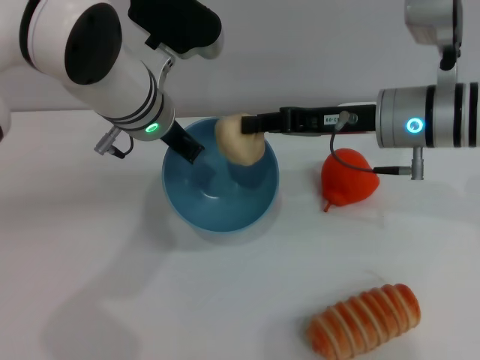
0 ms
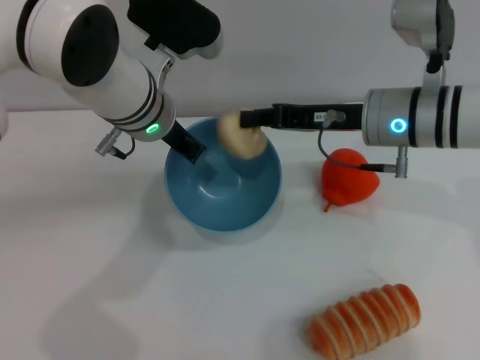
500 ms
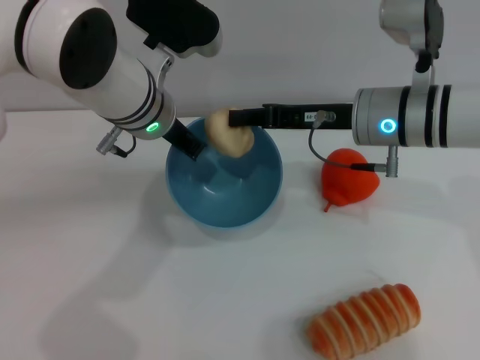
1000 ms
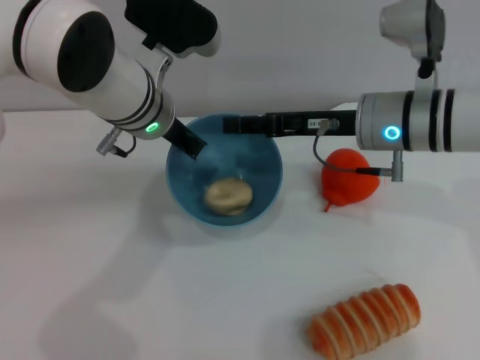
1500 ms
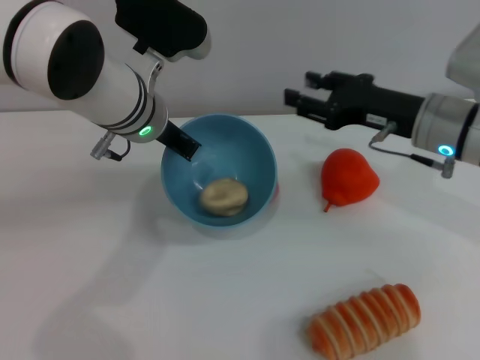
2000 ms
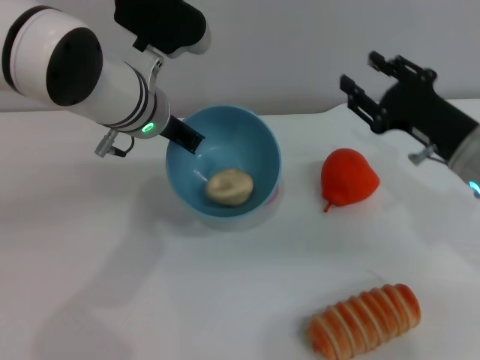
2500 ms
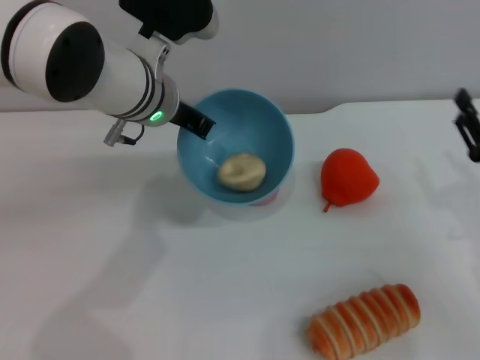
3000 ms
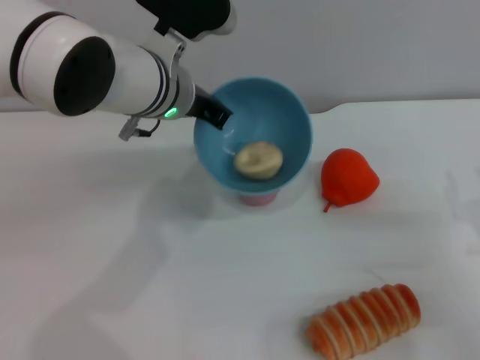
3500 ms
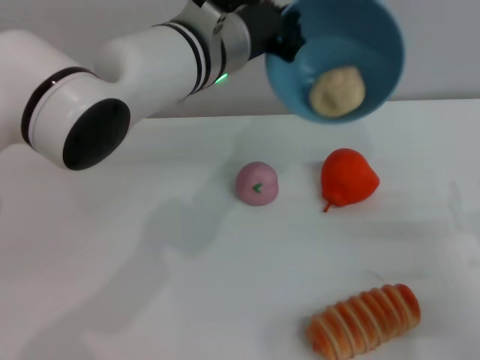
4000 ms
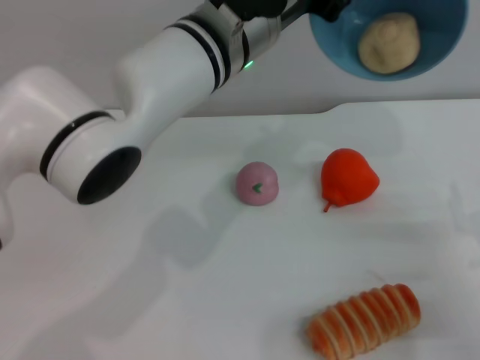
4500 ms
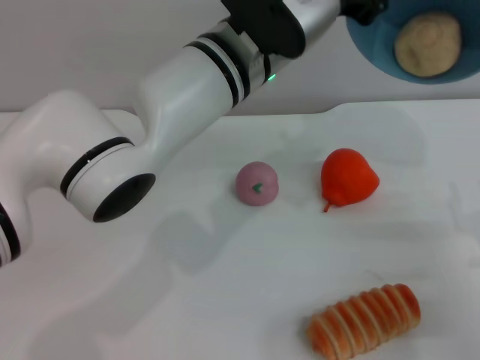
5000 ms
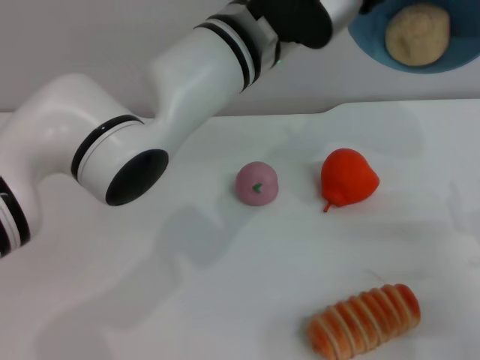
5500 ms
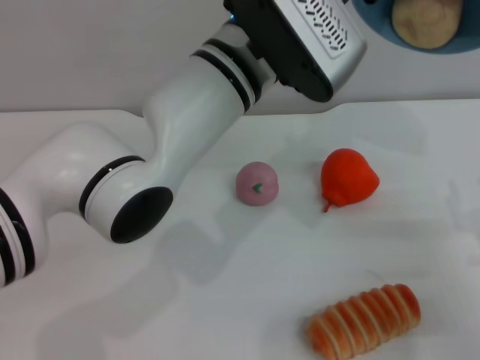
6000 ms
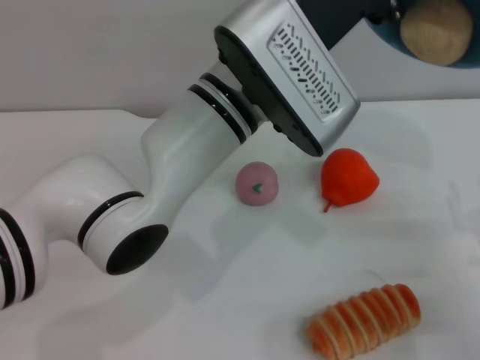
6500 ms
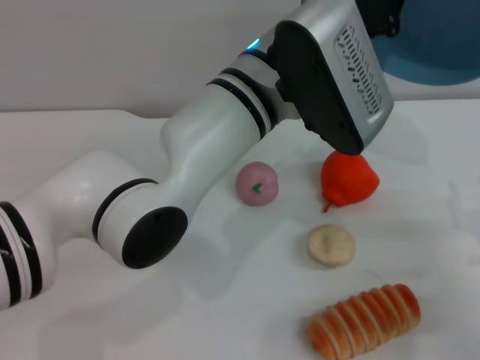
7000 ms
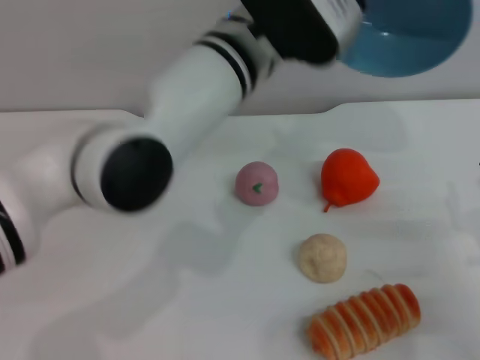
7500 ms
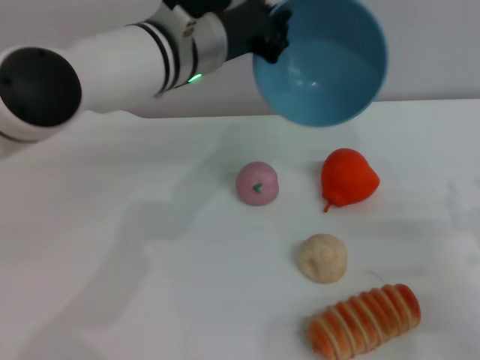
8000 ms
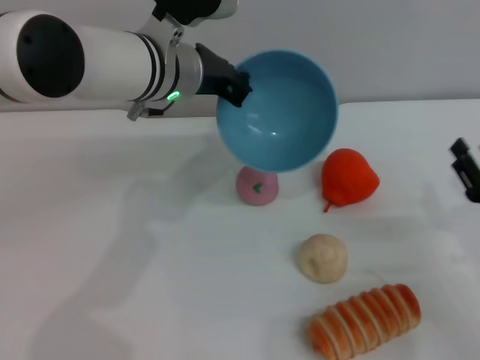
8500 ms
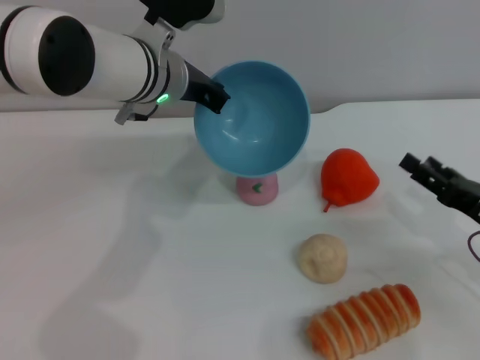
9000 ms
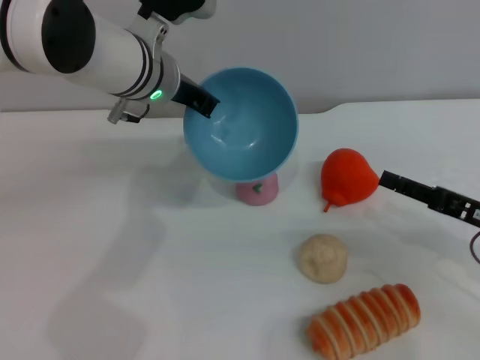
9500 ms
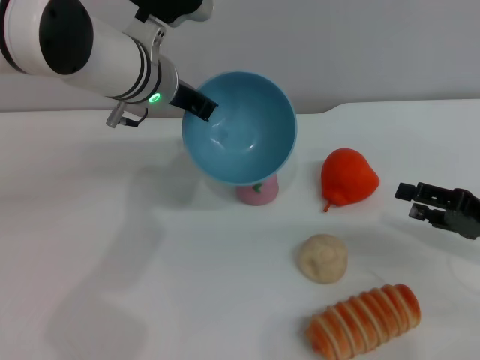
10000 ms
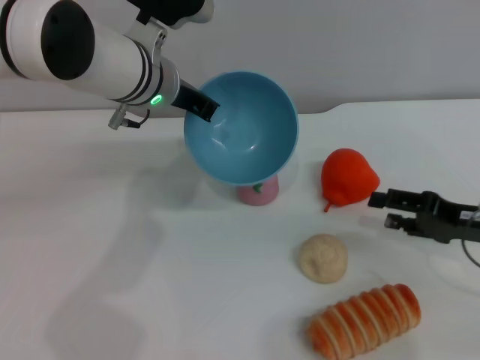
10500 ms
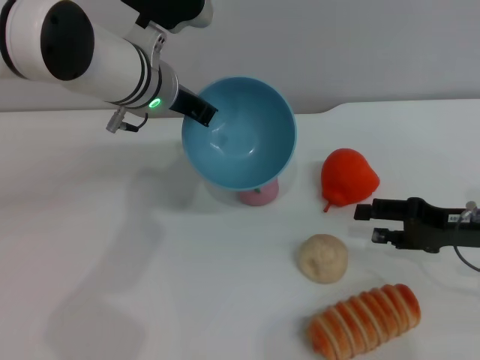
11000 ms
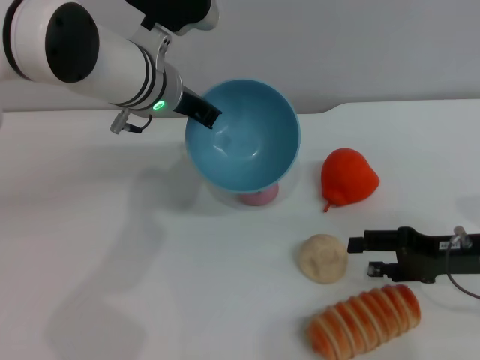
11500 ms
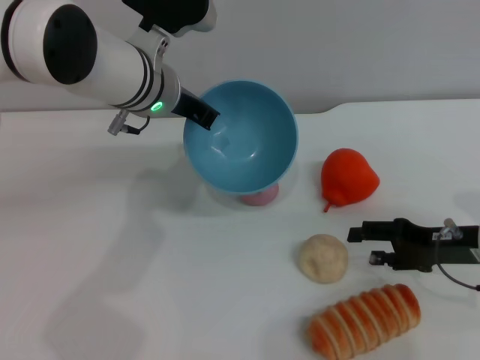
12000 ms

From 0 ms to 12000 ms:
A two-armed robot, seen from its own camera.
Task of the whole recording: put the egg yolk pastry into the blue bowl and pour it out repeatedly.
Step, from 0 ms to 2000 ms: Place the egg yolk pastry into the bowl.
Step, from 2500 ms to 7500 ms: Pour the egg yolk pastry out of bowl.
From 0 ms to 2000 ms: The right gripper opens its fingers.
From 2000 ms to 4000 ms: The right gripper goes approximately 20 cm backward, to the right and downward; the left gripper shifts approximately 5 cm to the right.
From 6000 ms to 8000 ms: The left gripper is displaced to the left by about 5 cm.
From 8000 ms to 10000 ms: The right gripper changes place by roughly 5 cm.
From 10000 ms to 12000 ms: The right gripper changes place by approximately 5 cm.

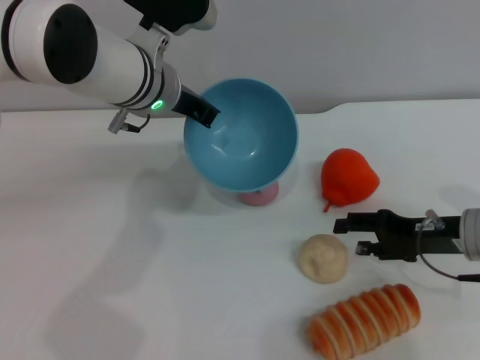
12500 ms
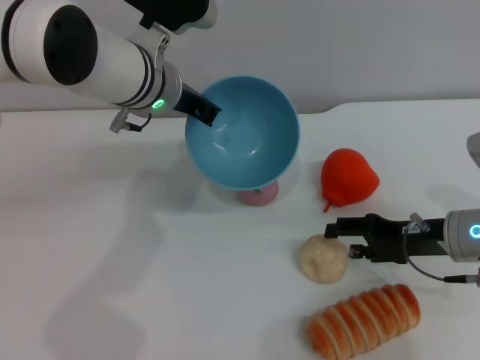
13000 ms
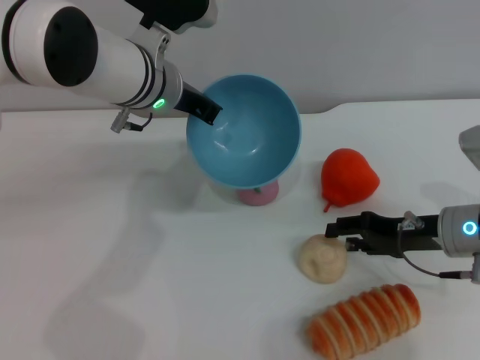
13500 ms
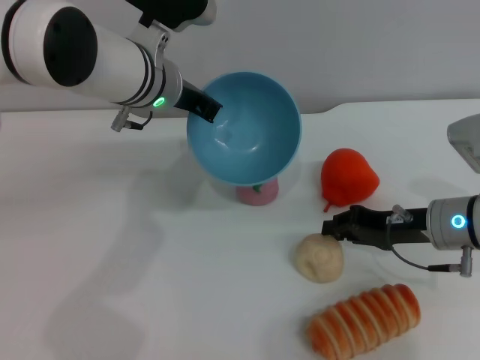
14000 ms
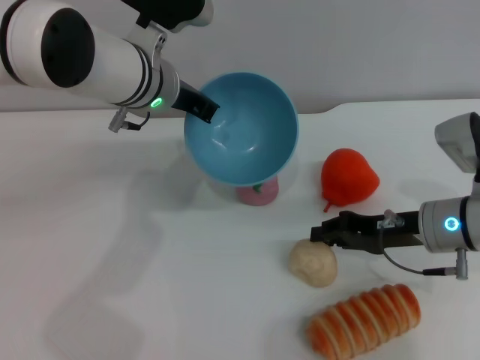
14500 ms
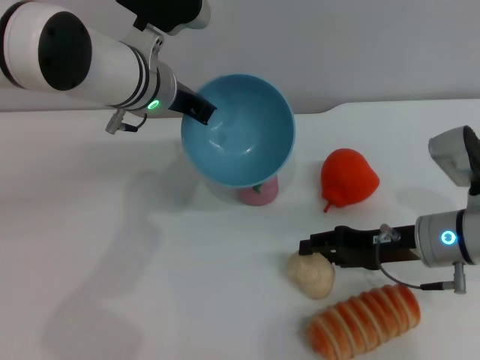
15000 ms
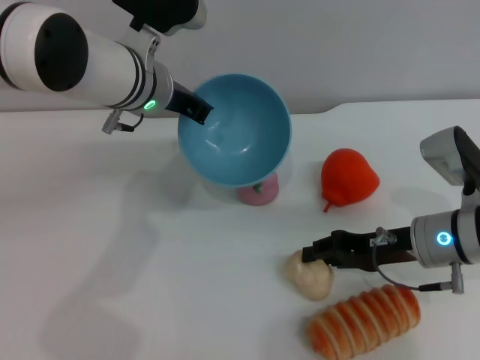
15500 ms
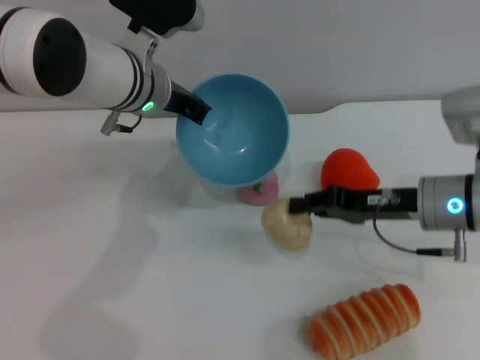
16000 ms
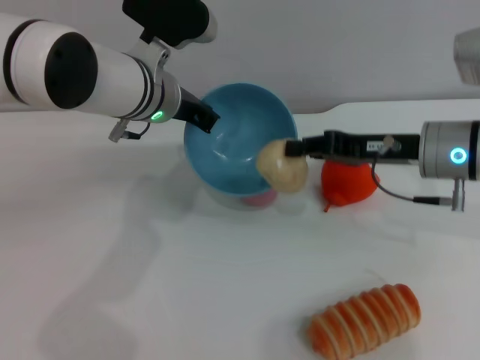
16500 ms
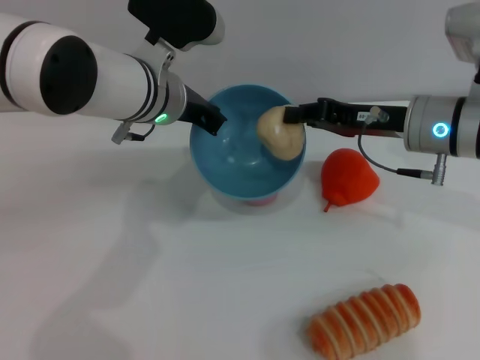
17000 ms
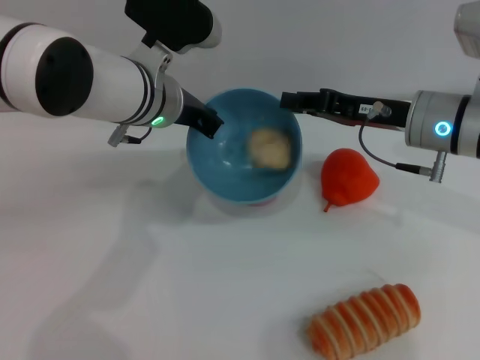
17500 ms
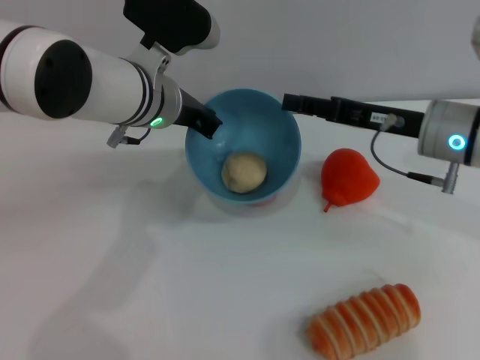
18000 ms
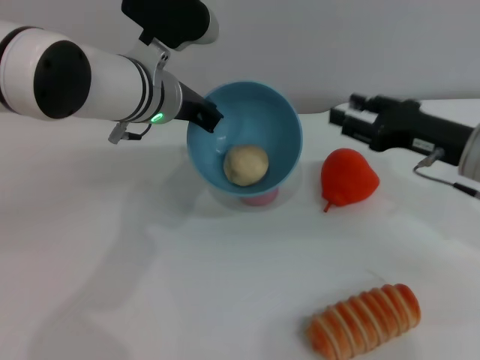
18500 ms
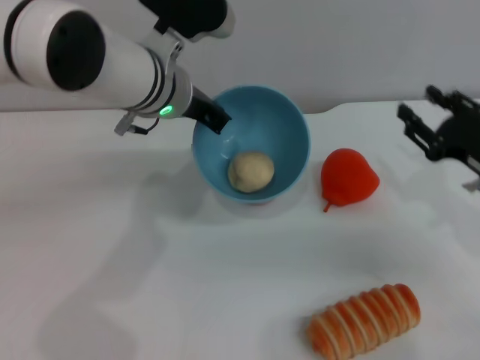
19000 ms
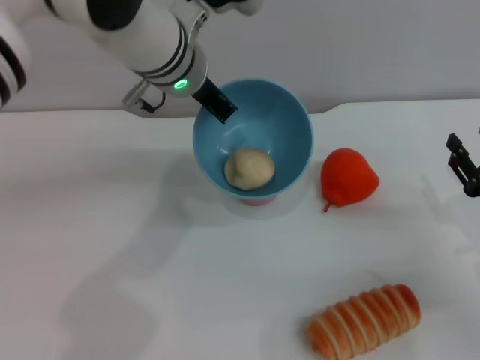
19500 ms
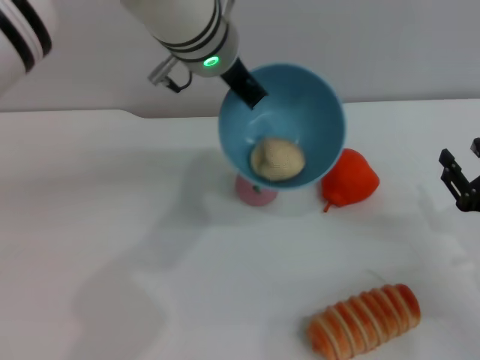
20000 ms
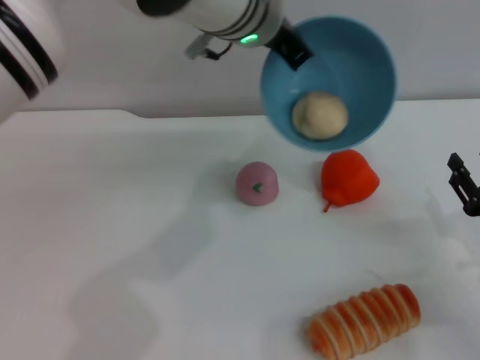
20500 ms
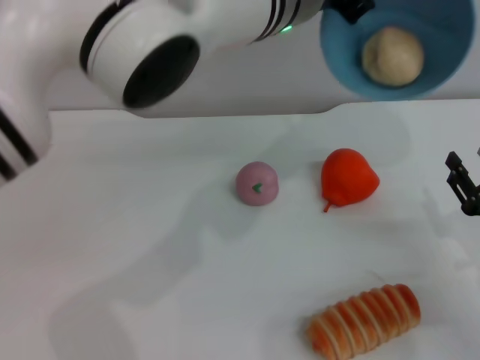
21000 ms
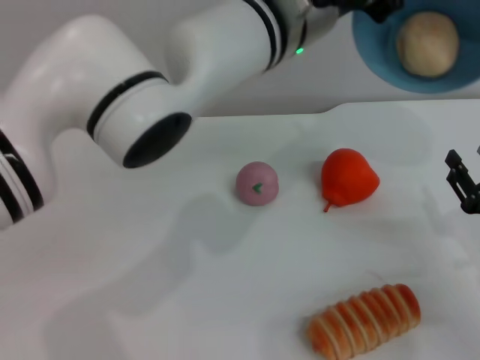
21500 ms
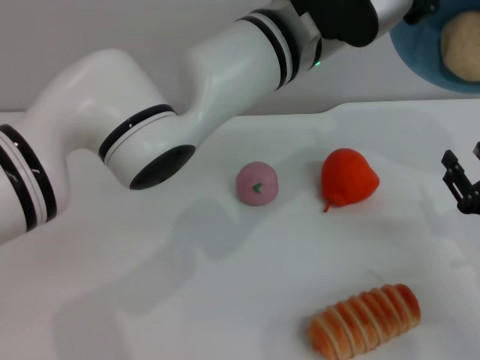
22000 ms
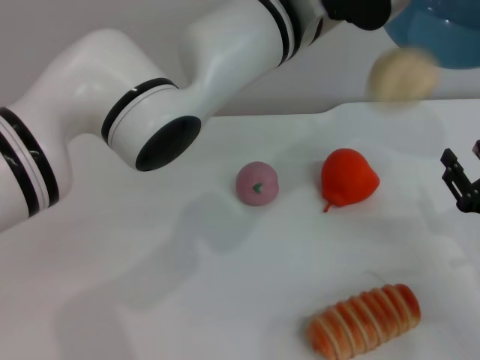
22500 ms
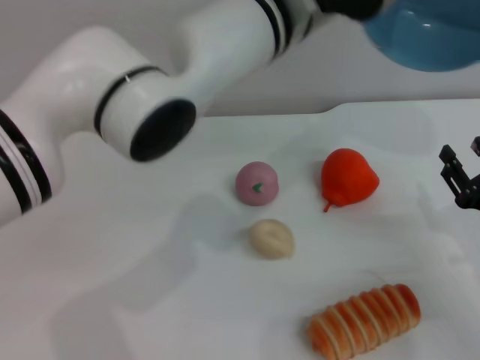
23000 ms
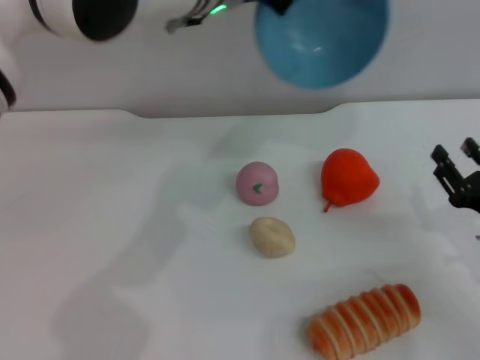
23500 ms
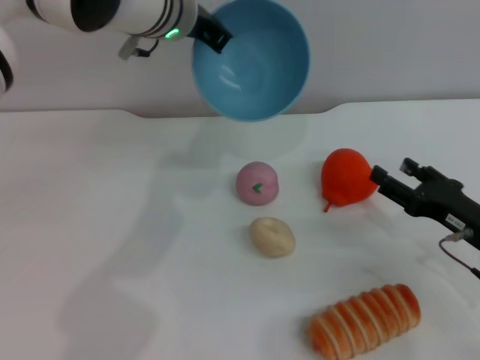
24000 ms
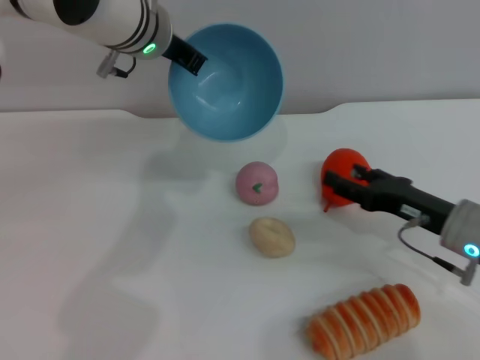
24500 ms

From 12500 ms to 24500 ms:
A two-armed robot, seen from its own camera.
Task of the whole recording: put the egg yolk pastry into the blue bowl and pour it out repeatedly.
Step, from 12500 ms to 16000 ms: Pick up the egg yolk pastry with the right gripper.
Step, from 16500 ms to 18500 ms: Place the egg yolk pastry into the bowl.
Step, from 19000 ms to 22500 ms: Pour the egg yolk pastry out of bowl.
From 12500 ms to 14500 ms: The right gripper closes.
From 14500 ms to 16500 ms: The right gripper travels upward by about 5 cm, and opens and closes again.
From 16500 ms to 18500 ms: The right gripper shifts by approximately 5 cm, and opens its fingers.
From 18500 ms to 20500 ms: The left gripper travels upward and to the right by some 15 cm; the right gripper is displaced backward, downward and to the right by about 15 cm.
From 22500 ms to 24500 ms: The left gripper is displaced to the left and forward by about 15 cm. The right gripper travels forward and to the left by some 10 cm.

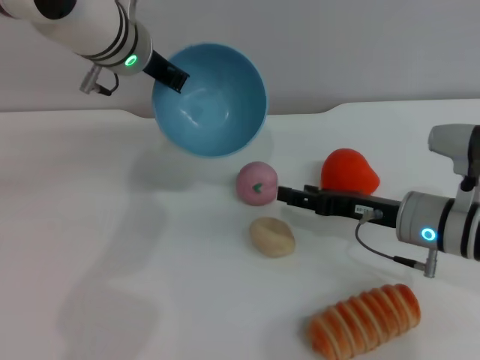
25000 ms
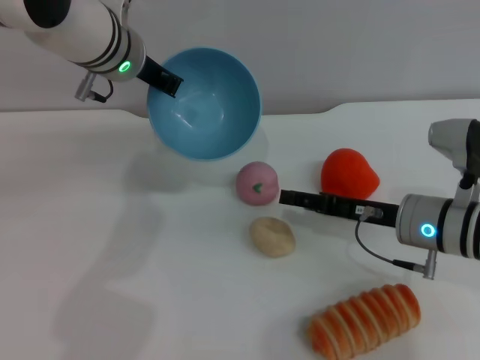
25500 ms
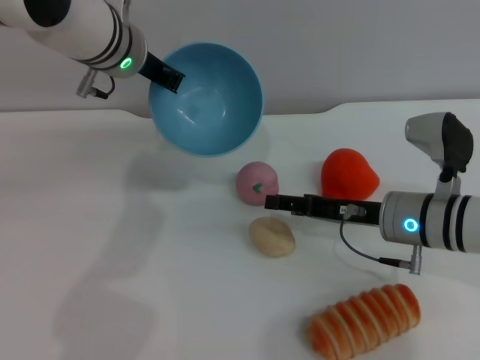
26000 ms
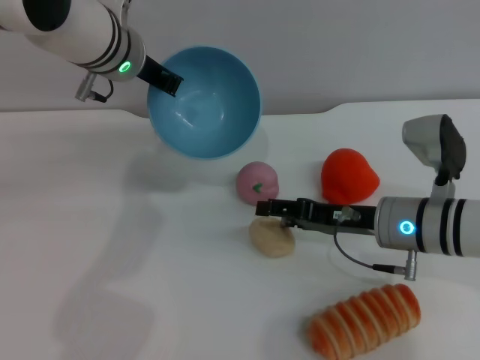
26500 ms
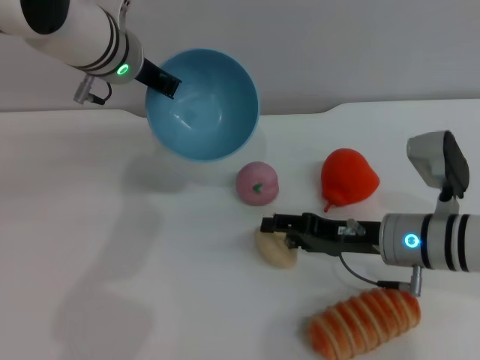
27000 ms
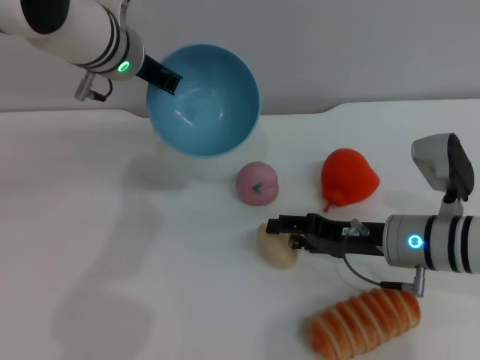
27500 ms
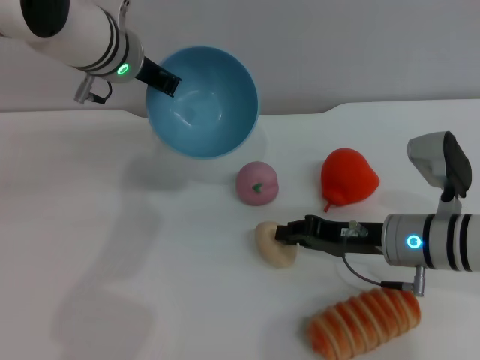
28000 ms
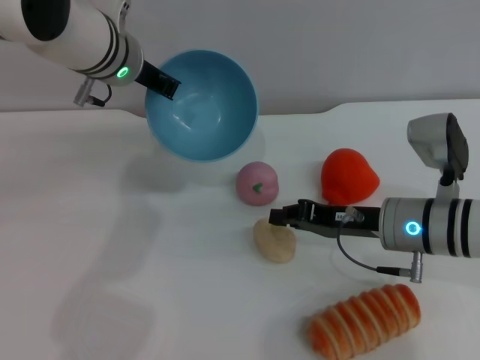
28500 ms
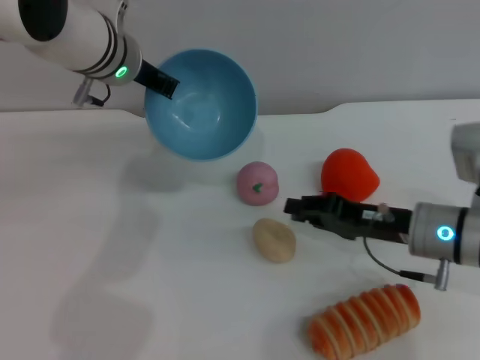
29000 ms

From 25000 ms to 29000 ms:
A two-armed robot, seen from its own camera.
Task of the whole recording: put the egg yolk pastry into the blue bowl and pour it out repeatedly.
From 27000 ms to 29000 ms: The right gripper closes its fingers.
